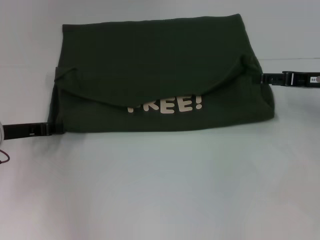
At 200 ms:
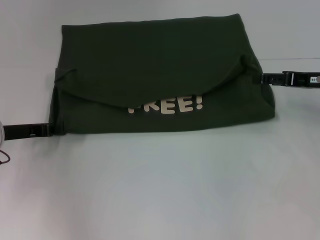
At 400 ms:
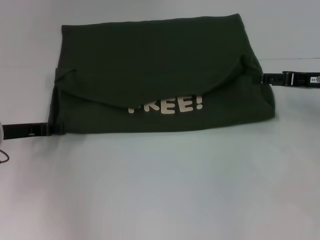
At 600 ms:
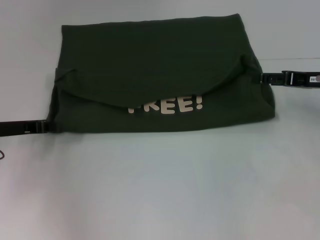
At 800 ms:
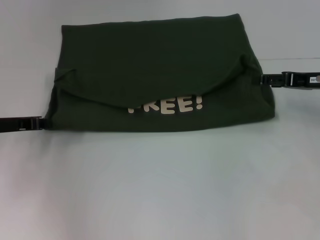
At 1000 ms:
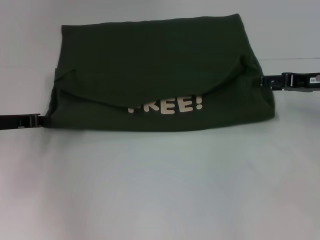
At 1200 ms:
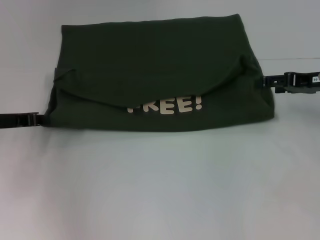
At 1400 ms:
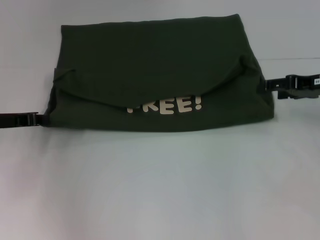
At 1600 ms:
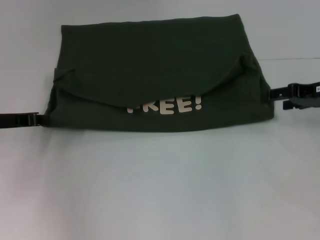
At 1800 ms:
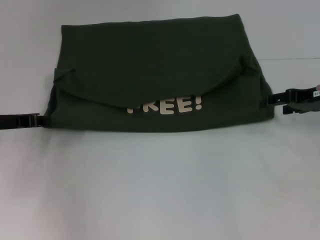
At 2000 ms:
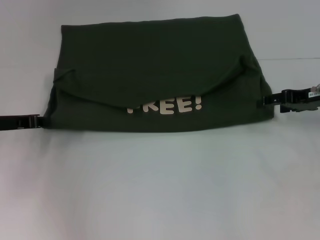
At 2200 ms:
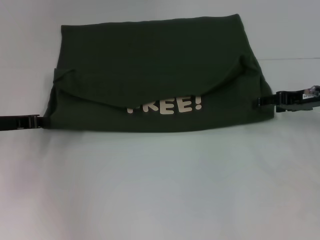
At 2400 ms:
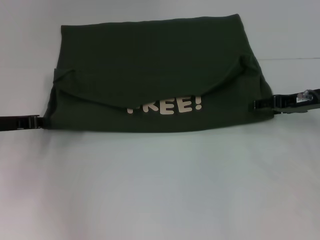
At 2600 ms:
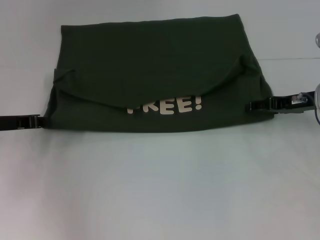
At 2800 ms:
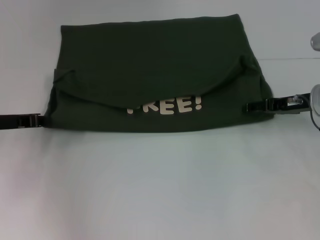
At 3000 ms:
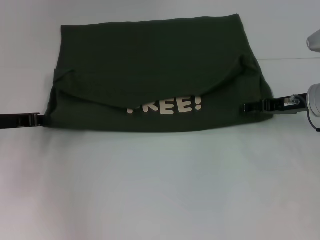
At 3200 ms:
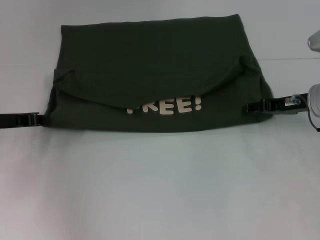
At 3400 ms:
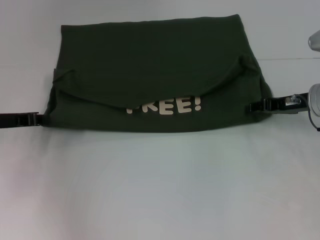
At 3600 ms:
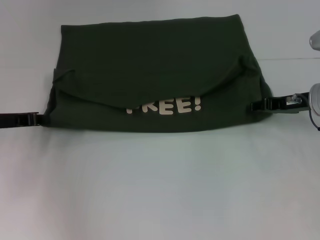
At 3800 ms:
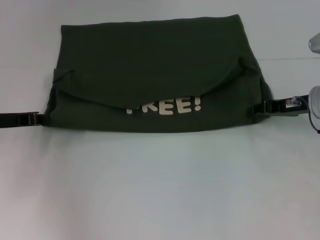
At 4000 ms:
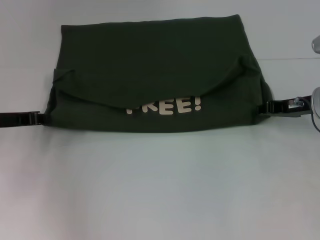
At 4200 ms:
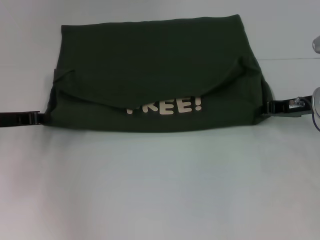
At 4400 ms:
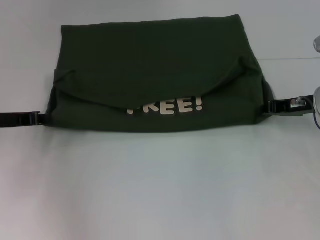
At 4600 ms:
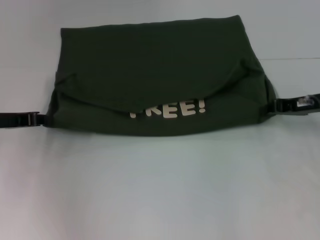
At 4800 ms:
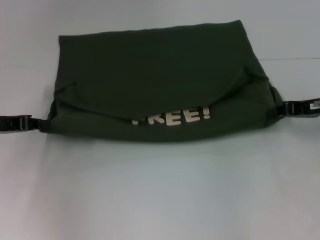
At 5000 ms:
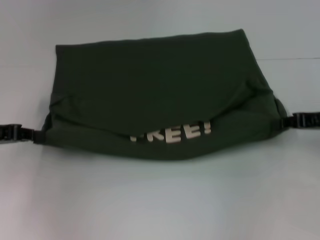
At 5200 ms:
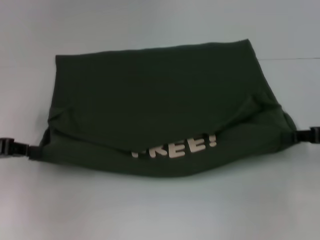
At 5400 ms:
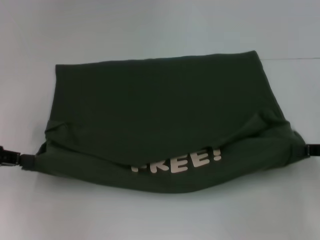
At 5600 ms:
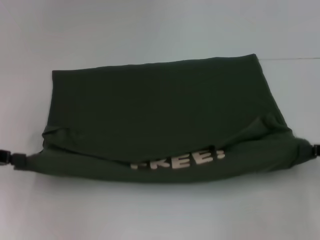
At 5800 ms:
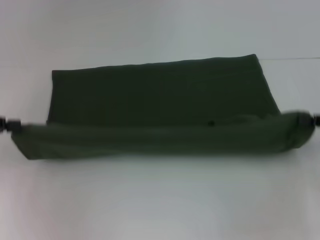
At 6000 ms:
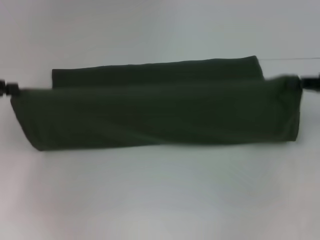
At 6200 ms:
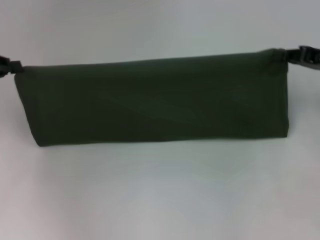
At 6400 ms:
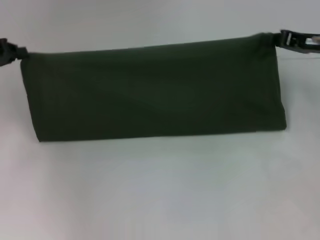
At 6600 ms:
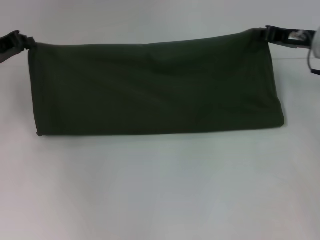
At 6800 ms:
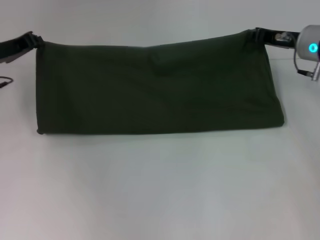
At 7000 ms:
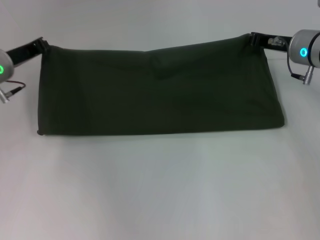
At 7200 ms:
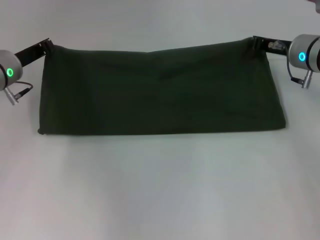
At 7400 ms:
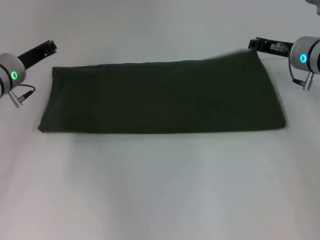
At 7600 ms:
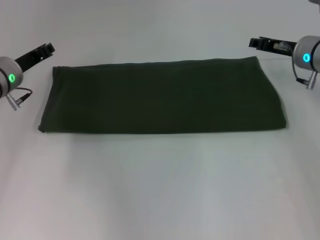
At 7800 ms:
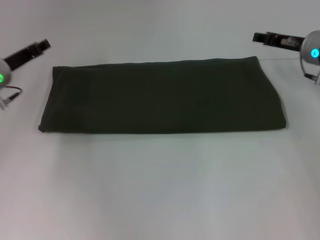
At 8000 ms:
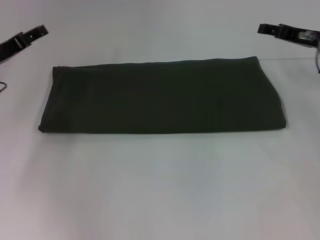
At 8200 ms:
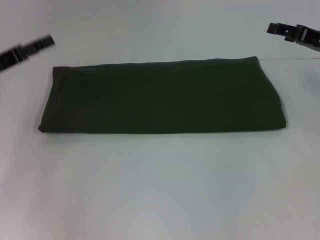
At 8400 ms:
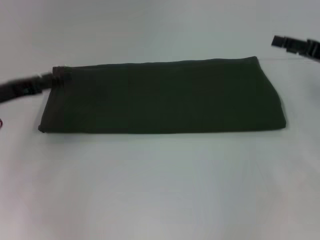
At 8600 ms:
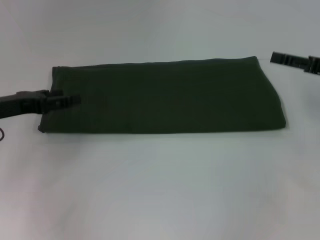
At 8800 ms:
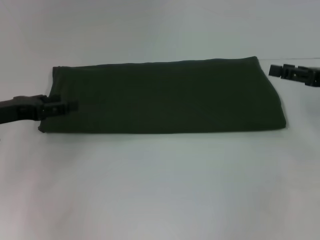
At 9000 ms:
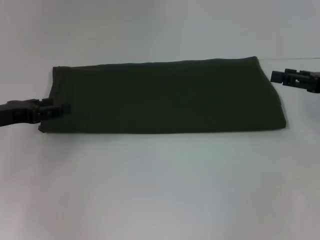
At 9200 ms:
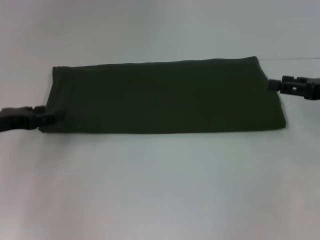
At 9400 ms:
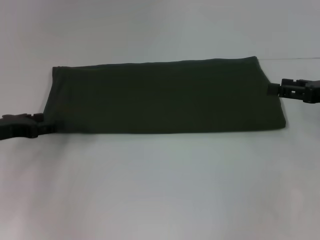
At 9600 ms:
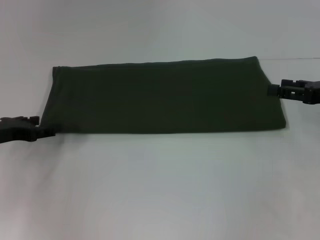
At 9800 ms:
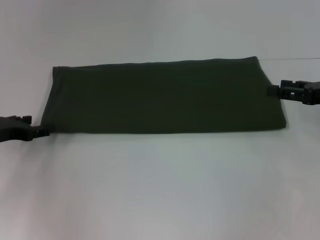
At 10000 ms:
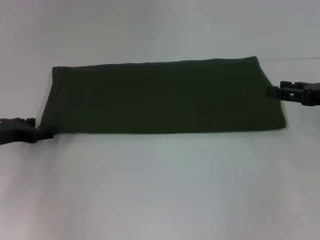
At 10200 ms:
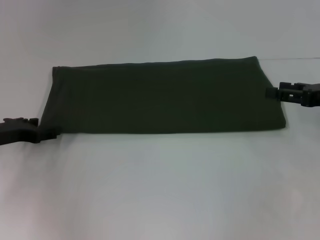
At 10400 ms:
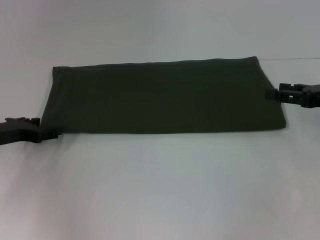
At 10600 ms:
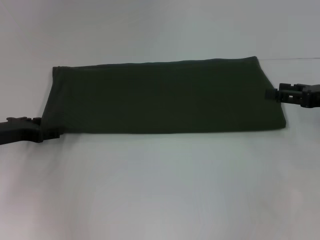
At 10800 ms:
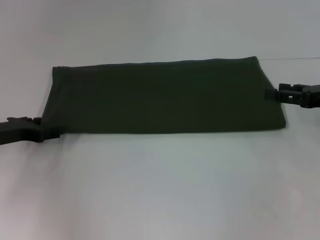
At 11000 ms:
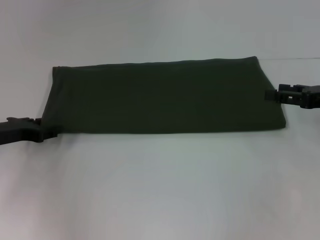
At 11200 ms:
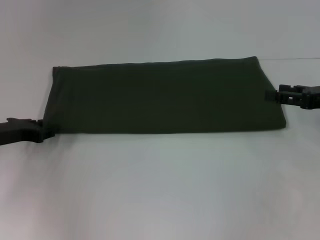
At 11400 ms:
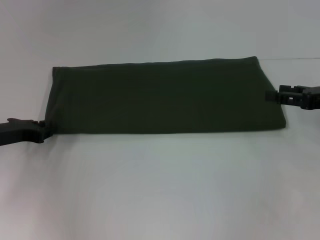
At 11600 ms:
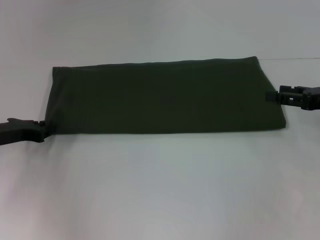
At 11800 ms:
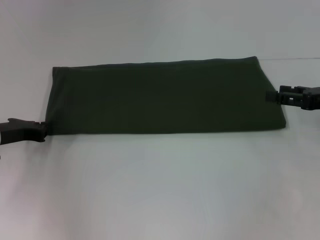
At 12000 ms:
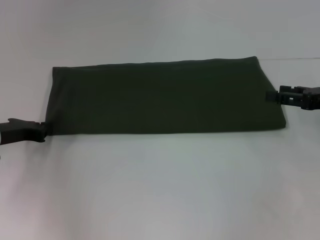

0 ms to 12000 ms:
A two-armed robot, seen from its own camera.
Step, 0 ms to 5400 ms: Pull the clothes with your left hand.
Step, 0 ms to 5400 ms: Pull the clothes with your right hand.
Step, 5600 ms to 7400 ms: Fold the clothes with your right hand.
0 ms to 1600 ms: The grippers move only a little.
1600 ms to 3000 ms: The right gripper moves some 5 cm.
3000 ms to 4400 ms: The right gripper closes.
4400 ms to 6000 ms: The right gripper shifts about 10 cm to the right, upward and backward, while the left gripper travels upward and to the left by about 10 cm.
6000 ms to 7600 ms: The right gripper moves forward and to the left, roughly 15 cm. The left gripper moves to the right, forward and downward, some 15 cm.
7600 ms to 9000 ms: The right gripper goes roughly 15 cm backward and to the right, and opens. Meanwhile the left gripper shifts roughly 10 cm backward and to the left, and opens its fingers.

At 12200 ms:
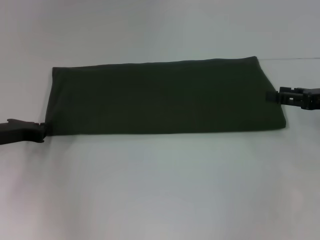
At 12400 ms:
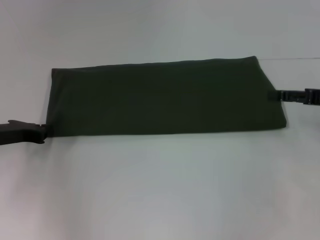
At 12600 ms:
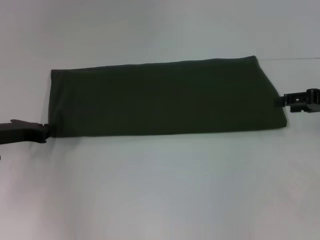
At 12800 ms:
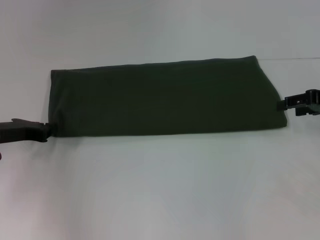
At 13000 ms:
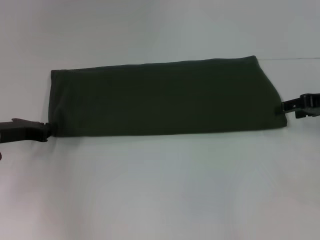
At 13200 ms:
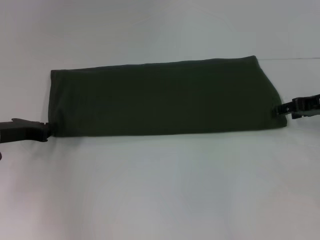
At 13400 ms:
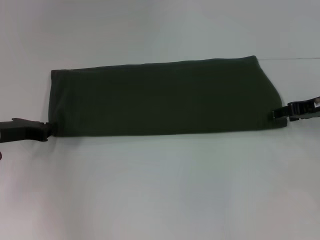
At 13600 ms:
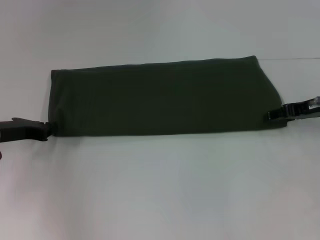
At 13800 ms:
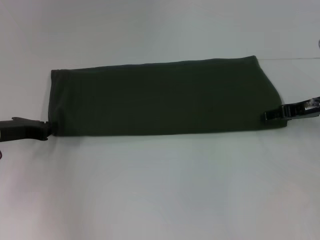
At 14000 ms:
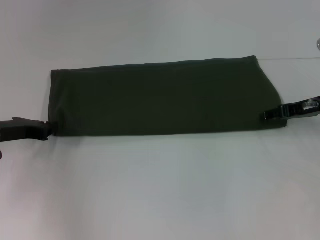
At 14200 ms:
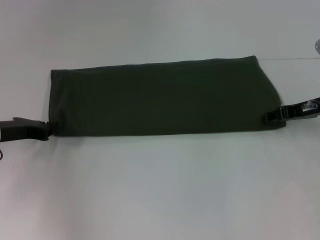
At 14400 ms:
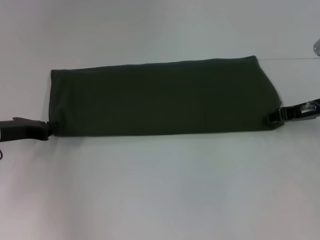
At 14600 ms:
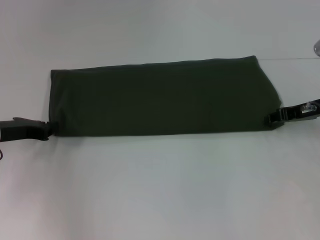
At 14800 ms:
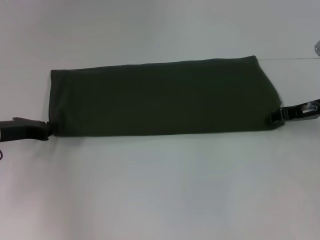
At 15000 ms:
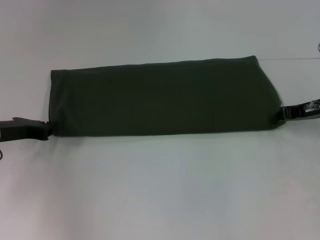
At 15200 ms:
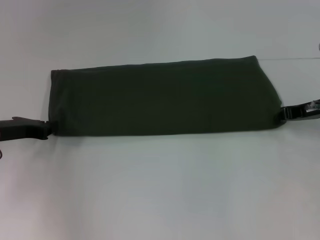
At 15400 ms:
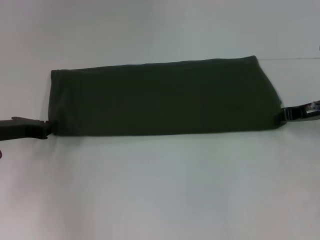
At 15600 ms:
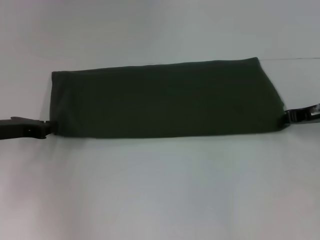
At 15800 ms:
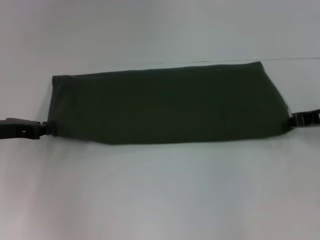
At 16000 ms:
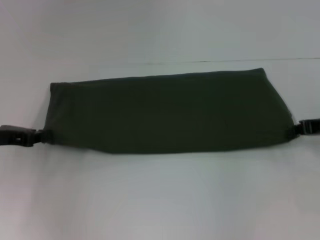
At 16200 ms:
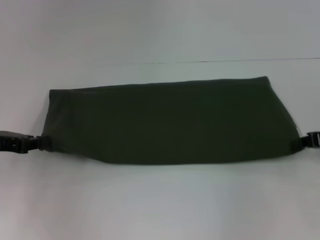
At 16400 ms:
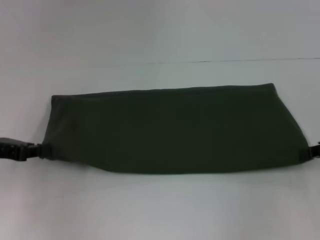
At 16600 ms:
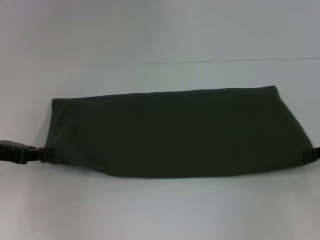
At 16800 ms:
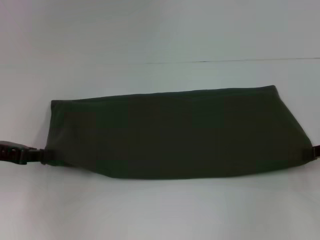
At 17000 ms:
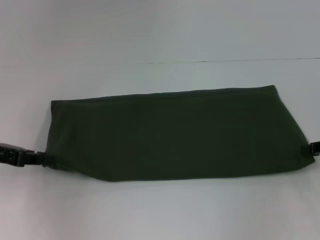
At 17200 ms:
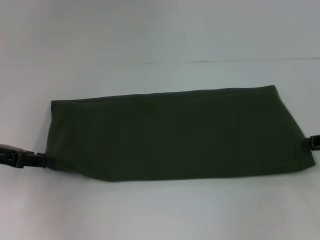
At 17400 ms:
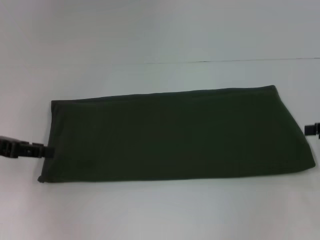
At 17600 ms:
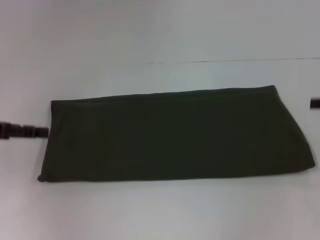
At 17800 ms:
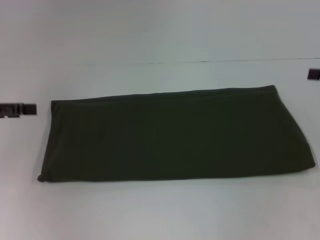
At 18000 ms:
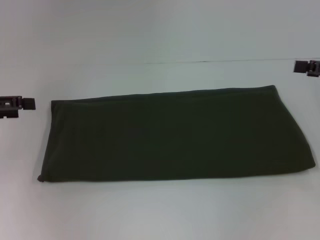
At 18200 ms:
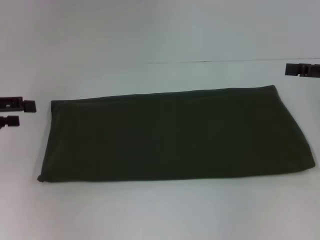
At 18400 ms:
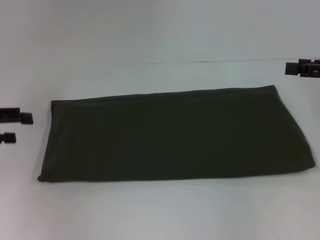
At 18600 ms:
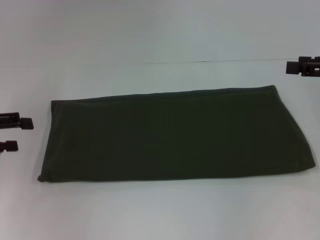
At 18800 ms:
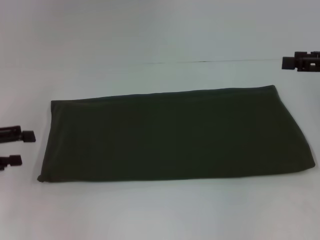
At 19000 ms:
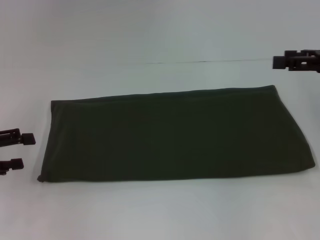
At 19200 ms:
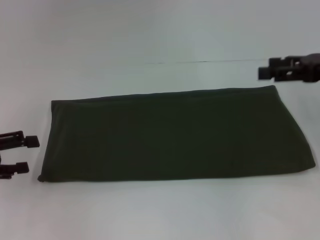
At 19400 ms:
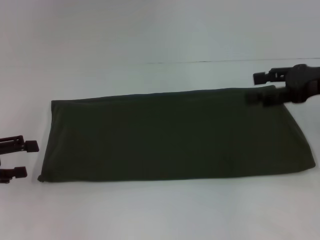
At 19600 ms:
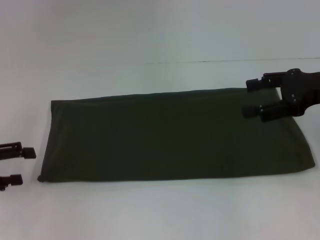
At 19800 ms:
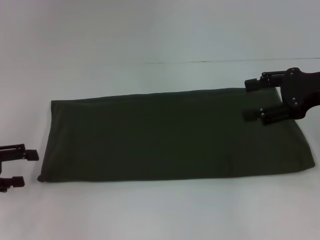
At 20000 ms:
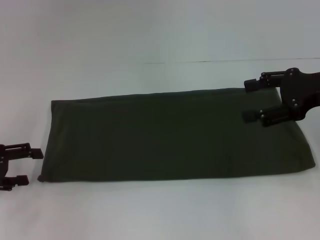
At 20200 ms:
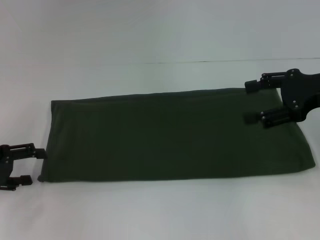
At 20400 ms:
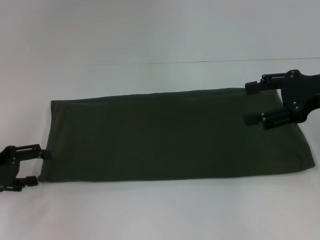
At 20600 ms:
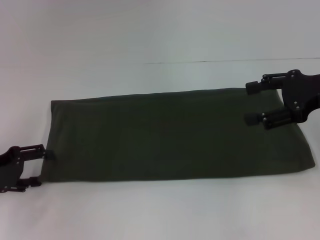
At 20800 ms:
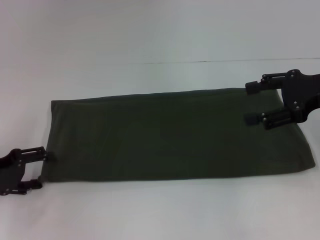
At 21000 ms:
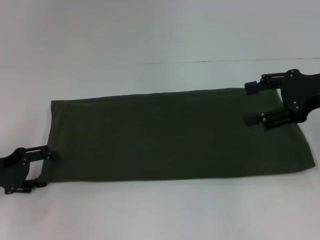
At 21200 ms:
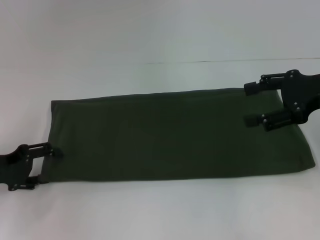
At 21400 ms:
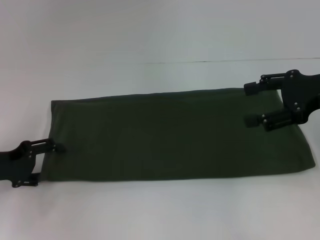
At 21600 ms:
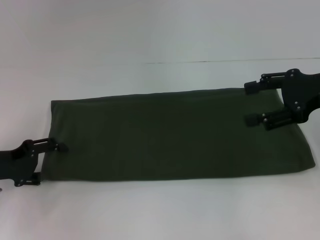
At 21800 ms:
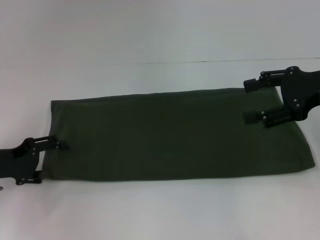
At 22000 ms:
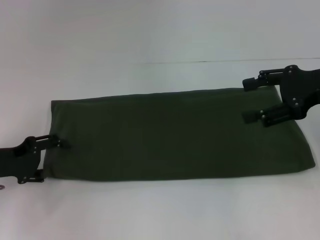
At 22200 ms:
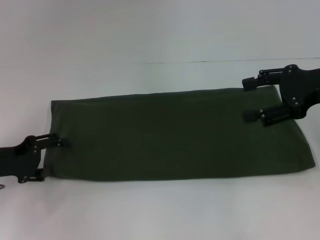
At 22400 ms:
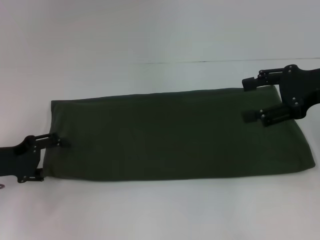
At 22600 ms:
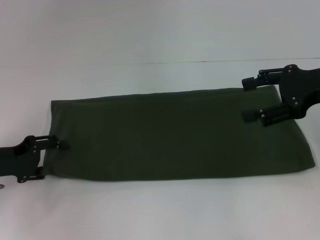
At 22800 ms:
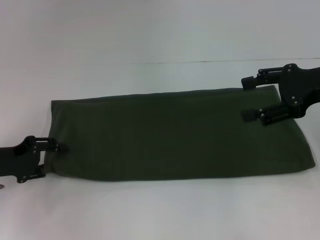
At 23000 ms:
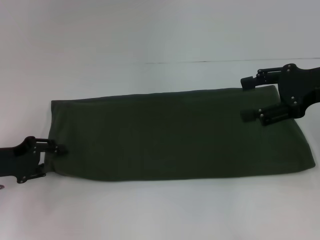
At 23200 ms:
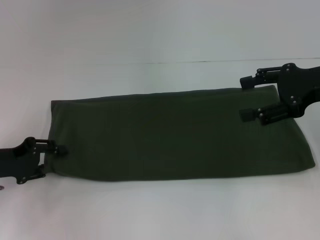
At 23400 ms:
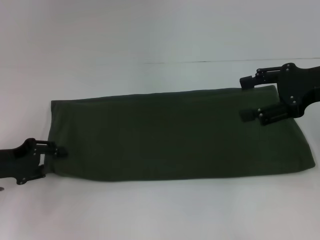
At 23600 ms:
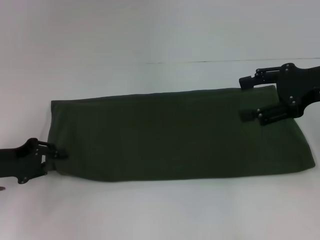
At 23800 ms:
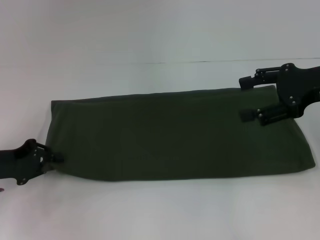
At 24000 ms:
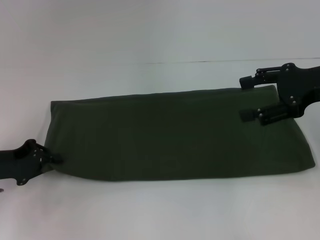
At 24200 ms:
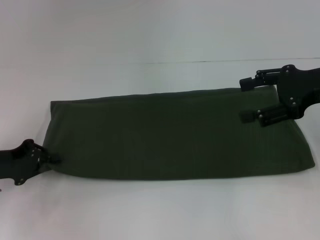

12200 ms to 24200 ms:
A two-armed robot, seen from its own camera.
12200 ms to 13800 ms: The right gripper heads forward, covering some 5 cm.
15200 ms to 16600 ms: The left gripper ends up approximately 5 cm from where it was. Meanwhile the right gripper is displaced backward and to the right by approximately 10 cm.
16600 ms to 18200 ms: The grippers both shift upward by approximately 5 cm. The left gripper opens up; the right gripper opens its fingers.
18200 ms to 19800 ms: The left gripper goes some 5 cm downward, while the right gripper moves to the left, about 5 cm.
19800 ms to 21200 ms: The left gripper changes place by roughly 5 cm.
21200 ms to 22600 ms: Both grippers stay about where they are.
22600 ms to 24200 ms: The left gripper closes.
